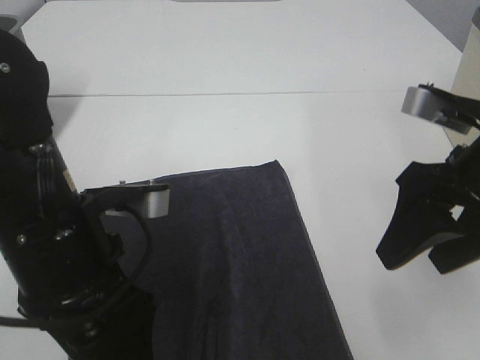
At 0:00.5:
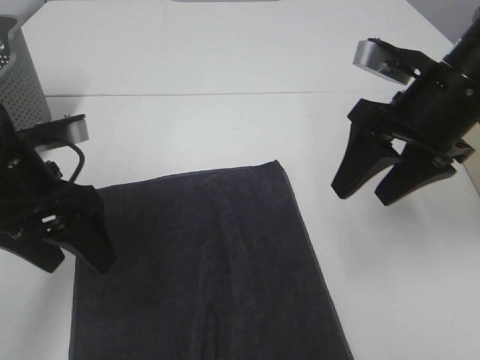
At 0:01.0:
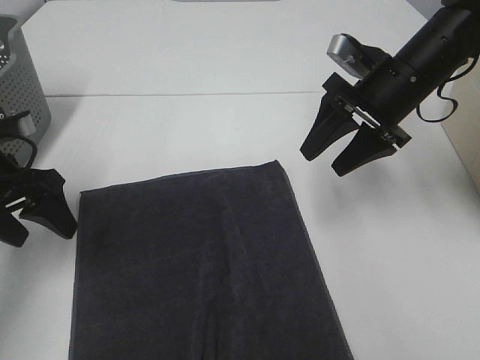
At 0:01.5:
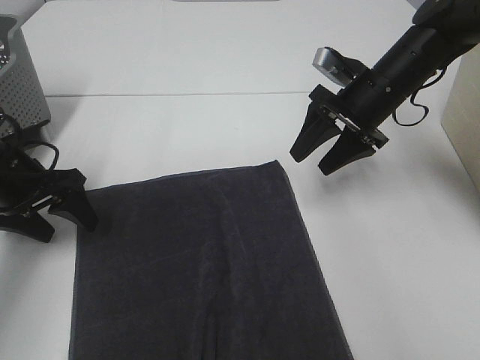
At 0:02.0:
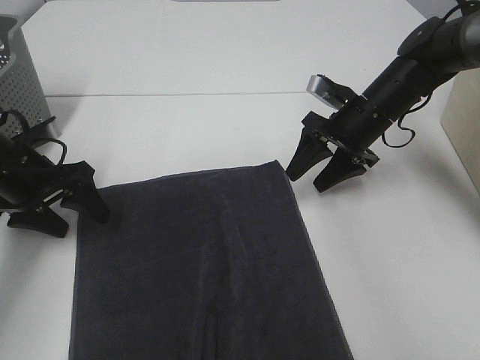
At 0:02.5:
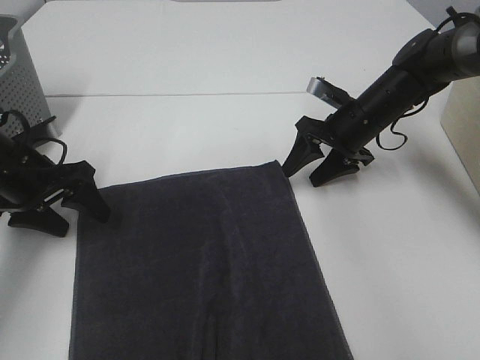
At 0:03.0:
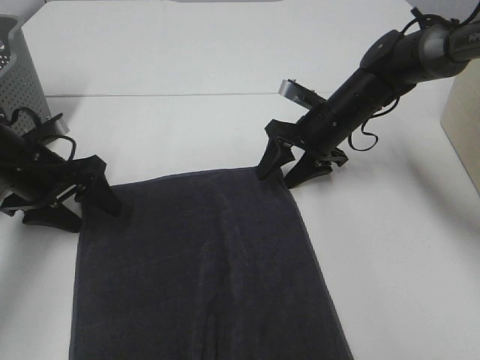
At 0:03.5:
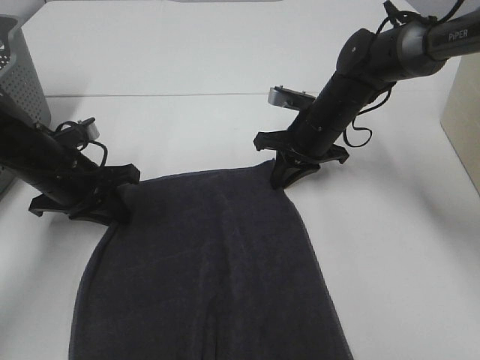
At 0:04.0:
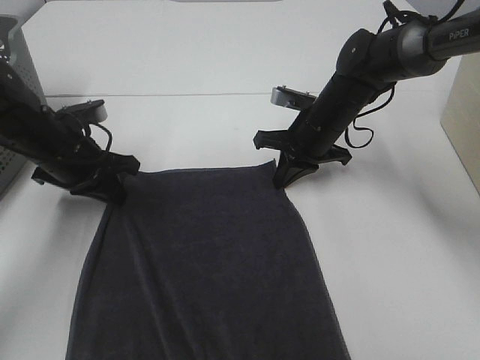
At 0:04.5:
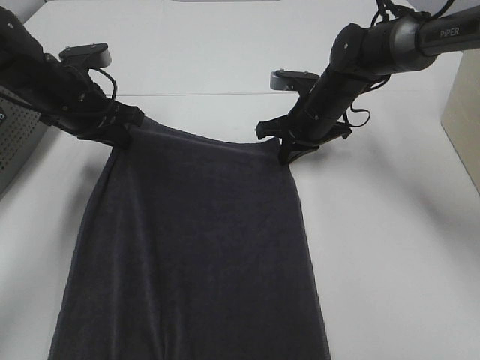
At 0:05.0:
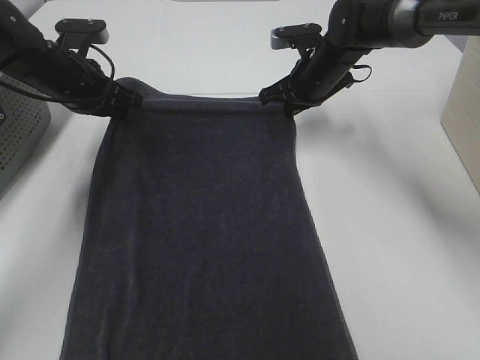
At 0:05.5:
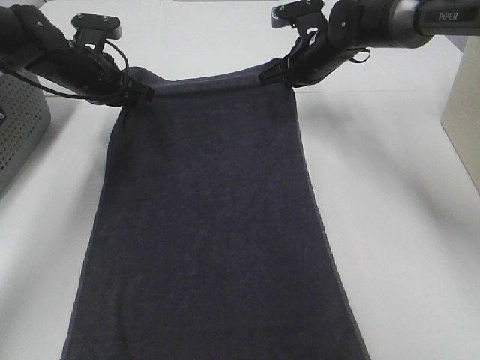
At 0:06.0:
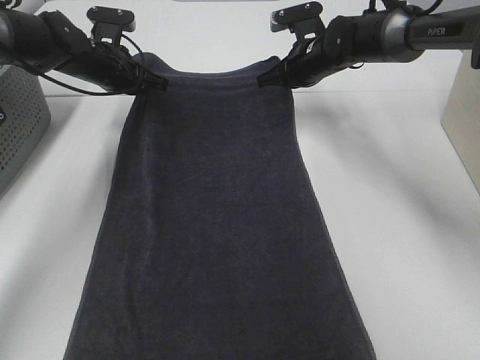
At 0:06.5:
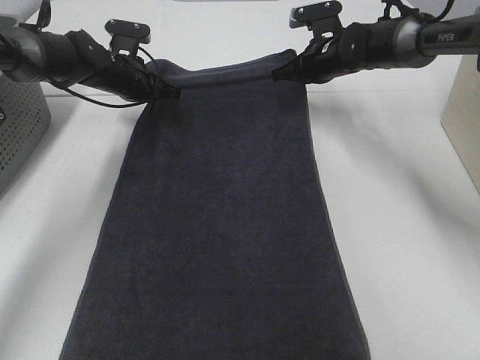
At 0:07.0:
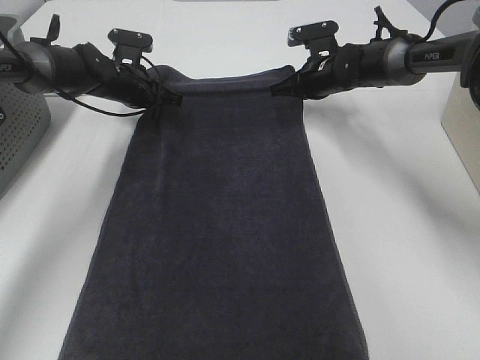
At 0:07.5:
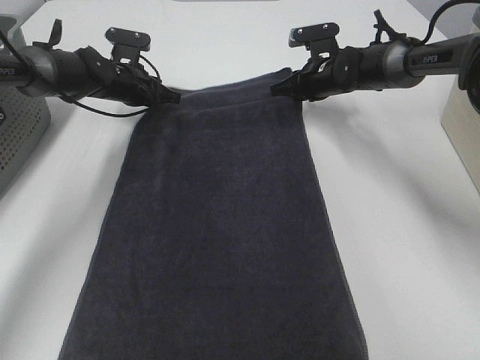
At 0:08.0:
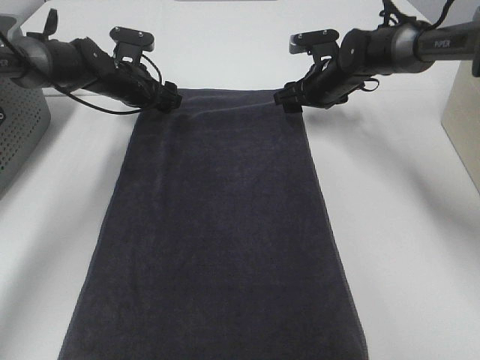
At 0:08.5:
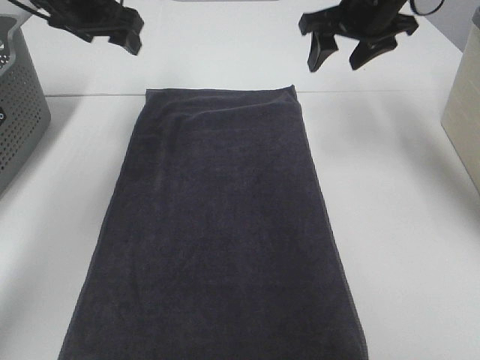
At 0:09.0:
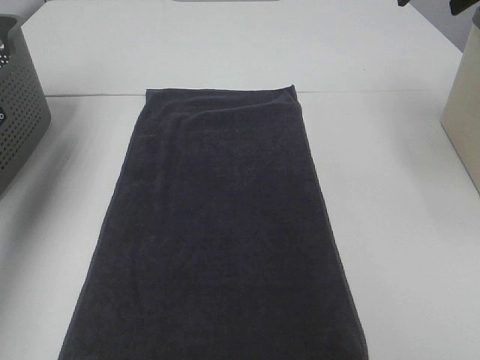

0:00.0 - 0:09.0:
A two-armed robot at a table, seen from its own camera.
Task of the whole recording: Remove the towel and place it.
0:00.0 - 0:02.0: The right gripper heads forward and downward, covering about 25 cm. Meanwhile the left gripper heads forward, to the left and downward, covering approximately 25 cm.
0:02.0 - 0:04.5: The left gripper is displaced forward, to the right and upward by about 10 cm, and closes. Meanwhile the right gripper shifts approximately 5 cm to the left, and closes.
0:04.5 - 0:07.0: The left gripper is displaced forward and downward by about 15 cm; the right gripper shifts about 10 cm forward.
0:07.0 - 0:09.0: The left gripper shifts approximately 35 cm upward, to the left and backward, and opens its fingers, while the right gripper is displaced upward and backward by some 30 cm, and opens.

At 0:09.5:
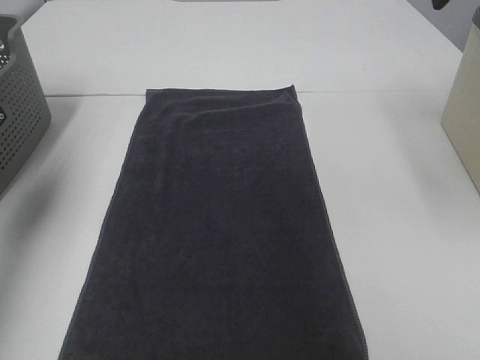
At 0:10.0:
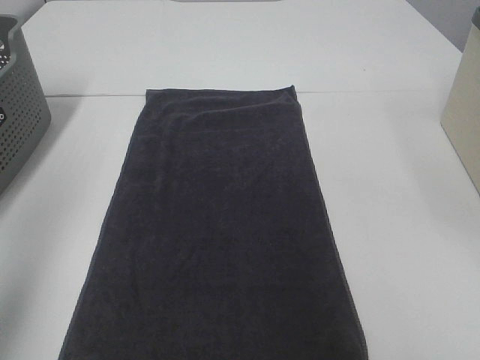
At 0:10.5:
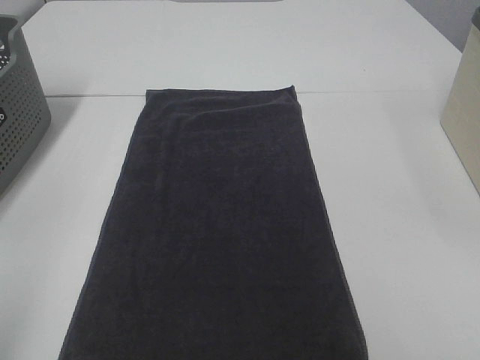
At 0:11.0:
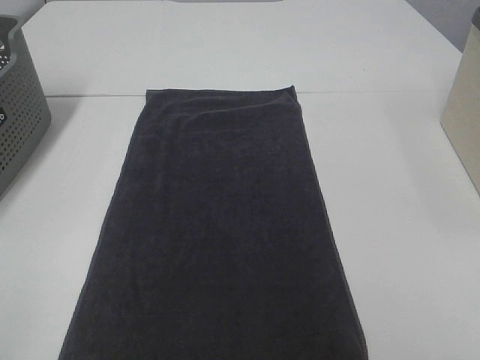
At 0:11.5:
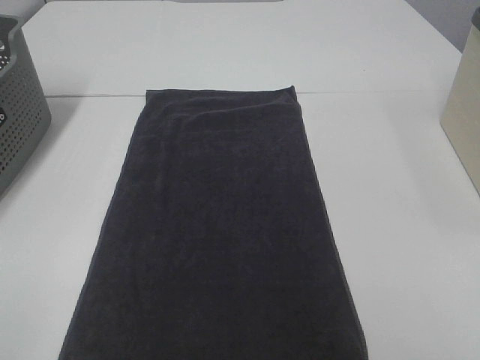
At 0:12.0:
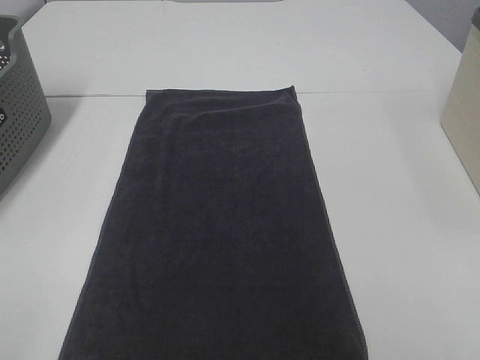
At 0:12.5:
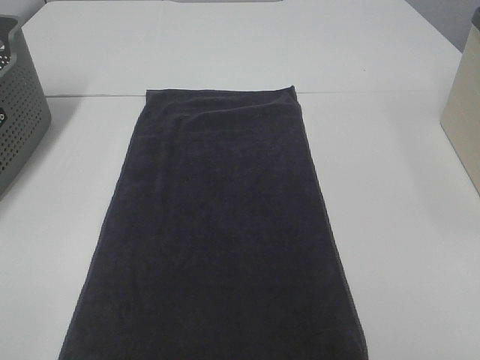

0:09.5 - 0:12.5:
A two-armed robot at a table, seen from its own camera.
Task of the whole recording: Remove the towel and place it.
0:09.5 - 0:11.0: The left gripper shifts some 30 cm backward.

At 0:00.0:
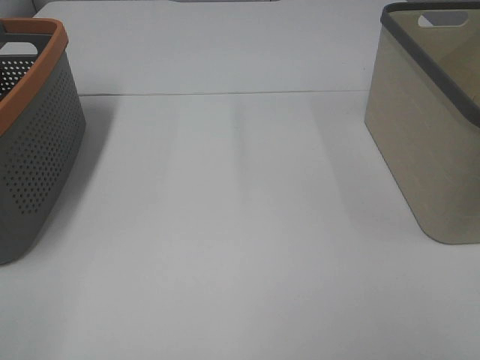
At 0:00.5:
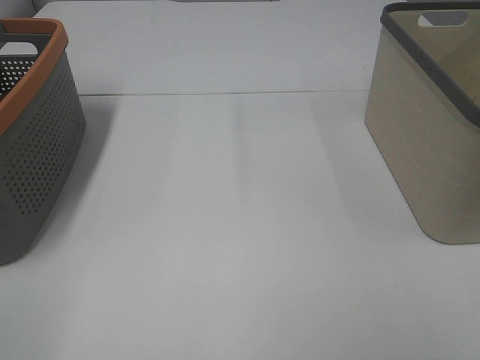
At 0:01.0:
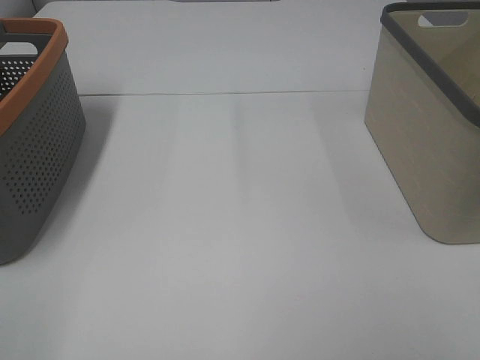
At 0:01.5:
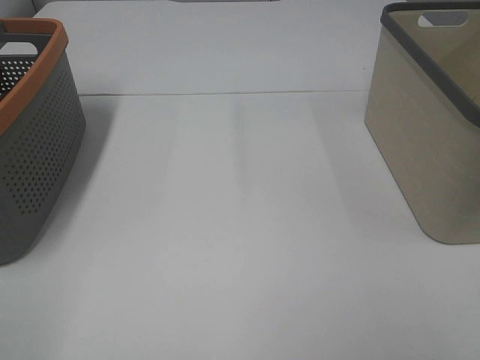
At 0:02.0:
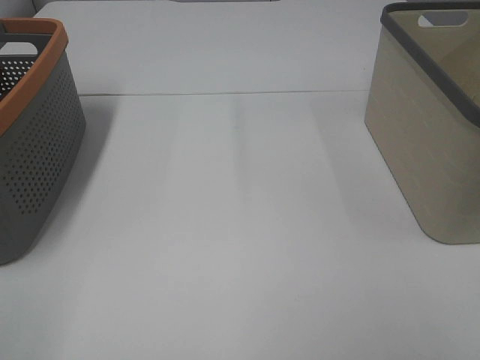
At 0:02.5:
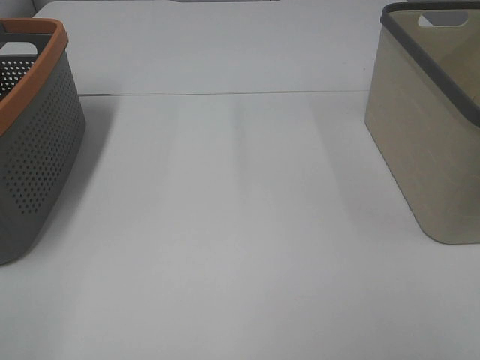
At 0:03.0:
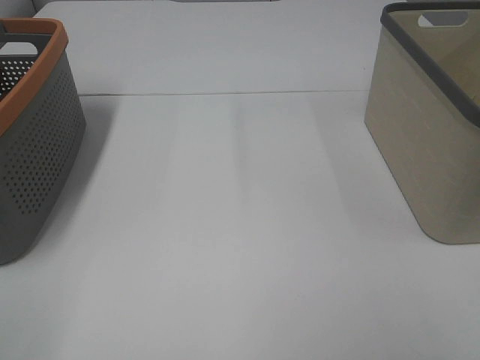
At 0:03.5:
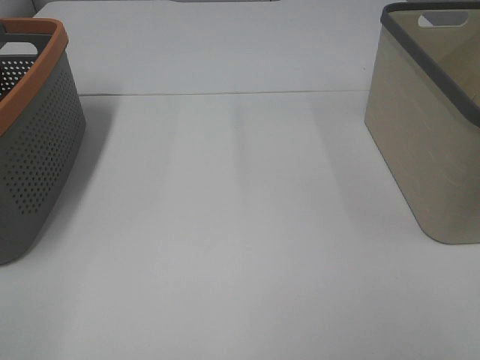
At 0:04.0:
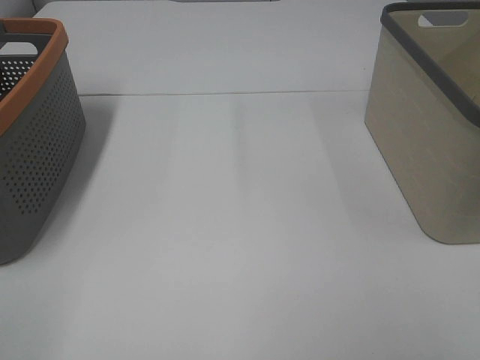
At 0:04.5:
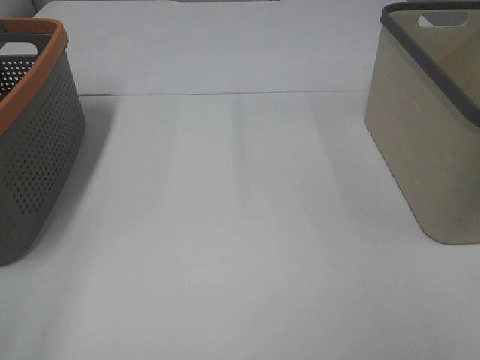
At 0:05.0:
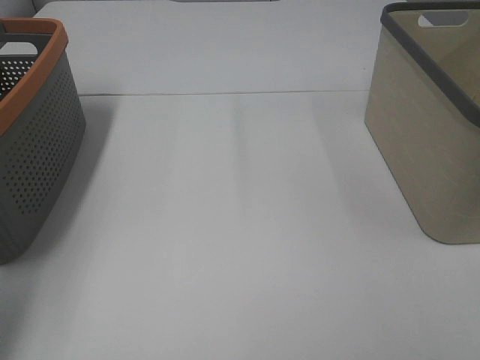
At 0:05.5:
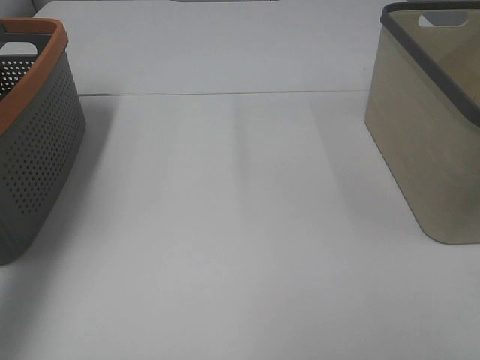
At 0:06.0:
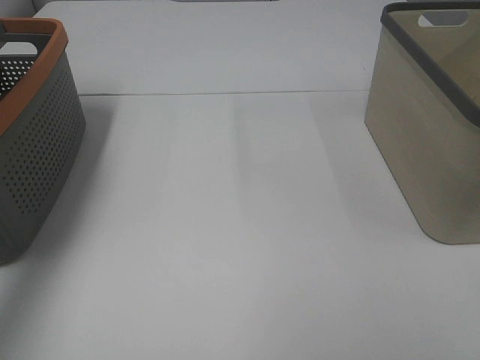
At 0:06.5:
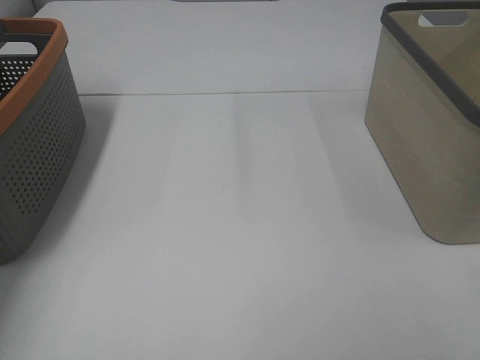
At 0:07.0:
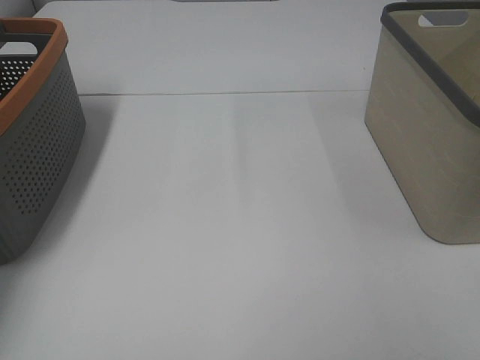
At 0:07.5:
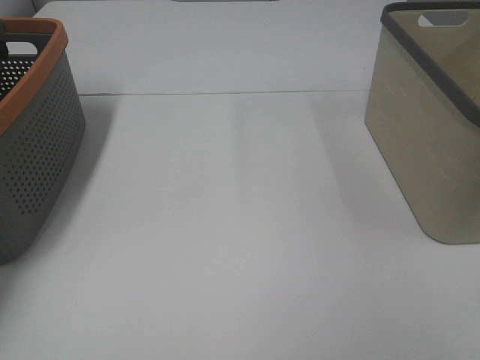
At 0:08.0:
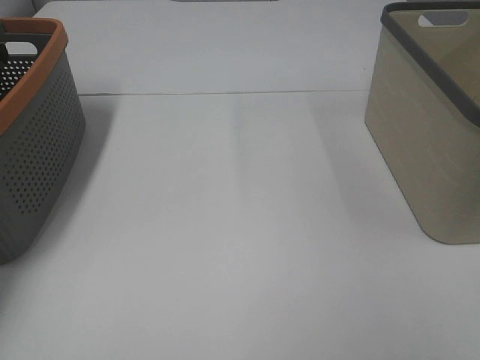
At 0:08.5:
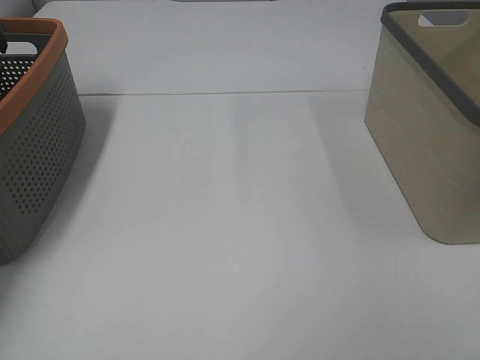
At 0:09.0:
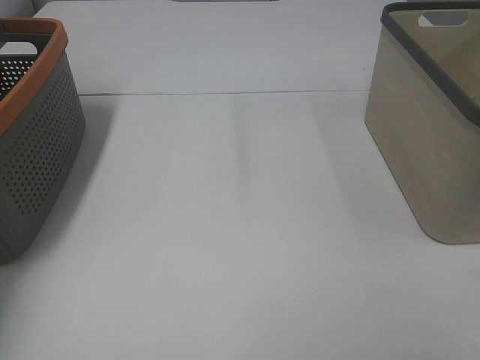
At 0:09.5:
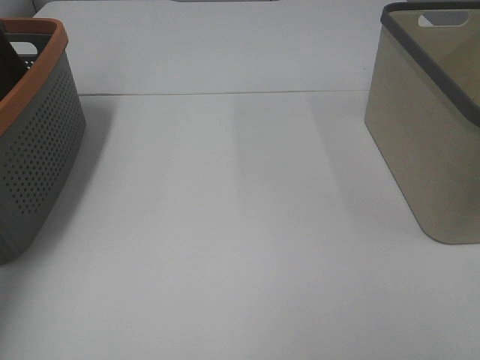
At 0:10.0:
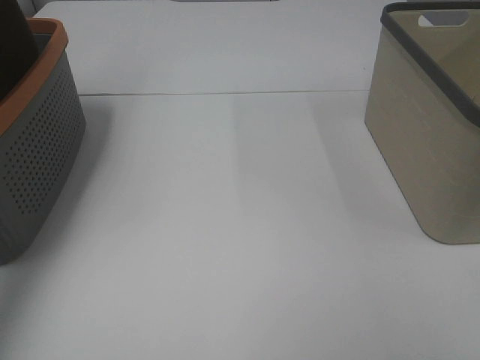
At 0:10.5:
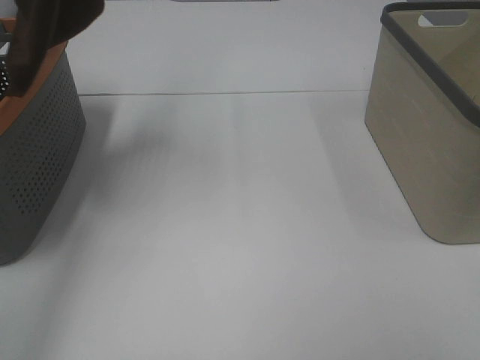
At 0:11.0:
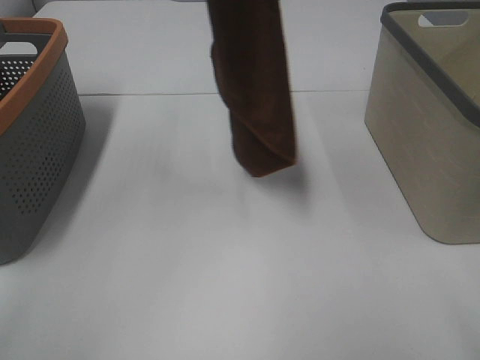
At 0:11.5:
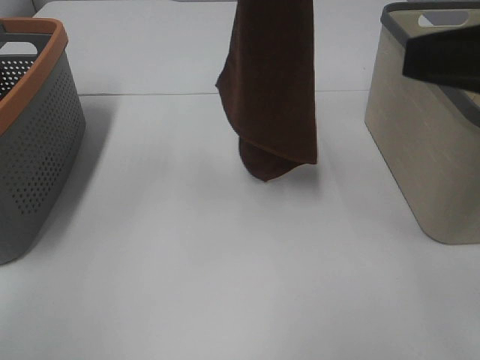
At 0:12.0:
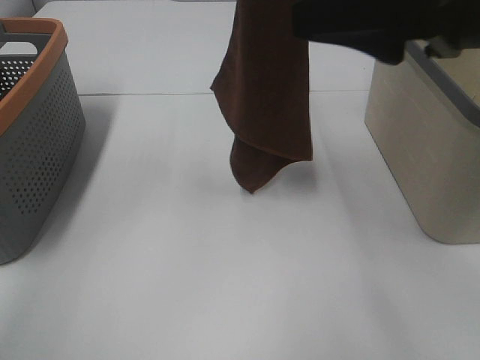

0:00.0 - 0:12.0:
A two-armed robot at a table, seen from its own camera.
Task of the whole recording: Remove the towel and place it.
0:00.0 - 0:04.0: The two grippers keep their place.
0:04.0 - 0:06.0: The left gripper shifts roughly 40 cm forward.
0:06.0 - 0:08.0: The left gripper goes some 15 cm forward, downward and to the left, and closes its fingers.
0:08.0 - 0:10.0: The left gripper travels upward and backward by about 35 cm.
0:10.0 - 0:12.0: The left gripper goes approximately 25 cm to the right, while the right gripper goes about 25 cm forward and to the left.

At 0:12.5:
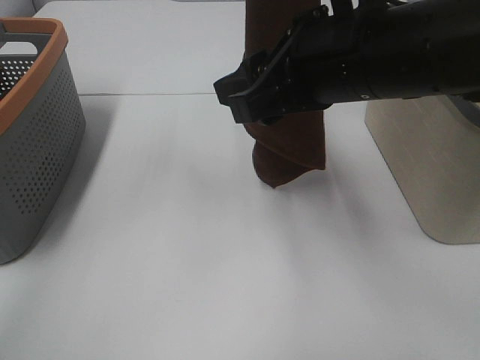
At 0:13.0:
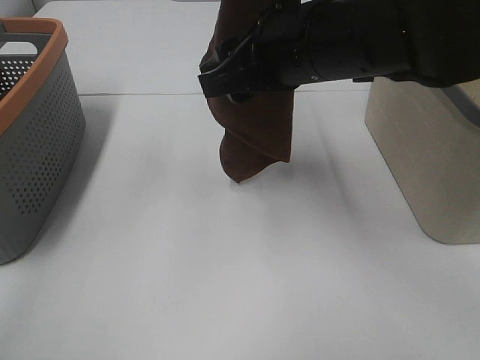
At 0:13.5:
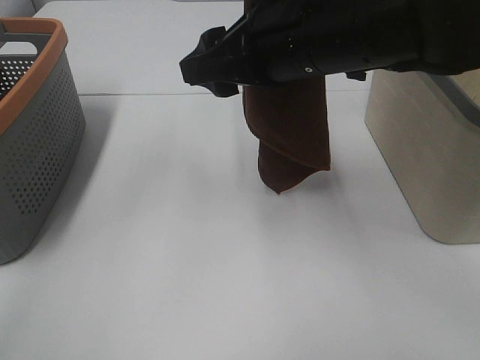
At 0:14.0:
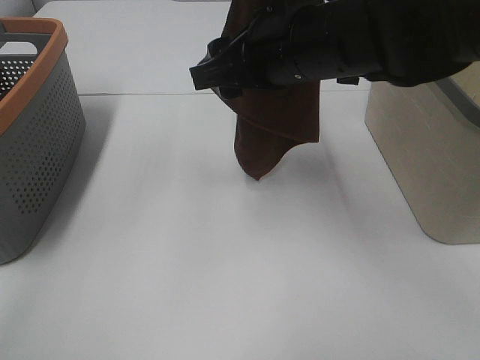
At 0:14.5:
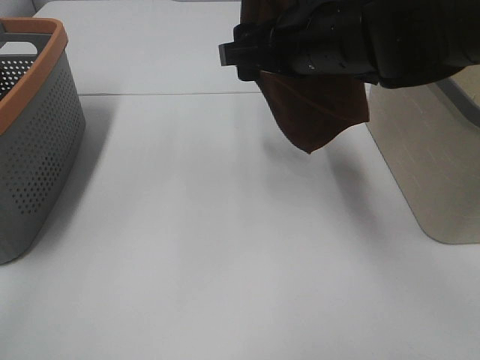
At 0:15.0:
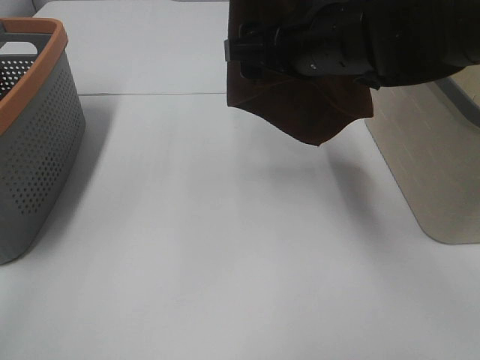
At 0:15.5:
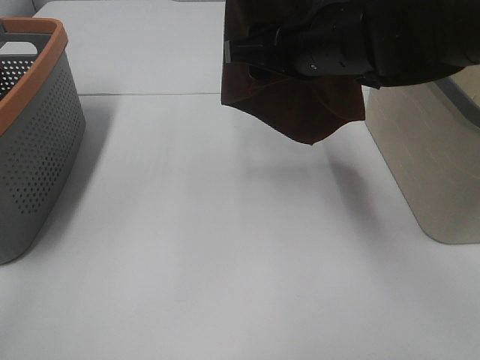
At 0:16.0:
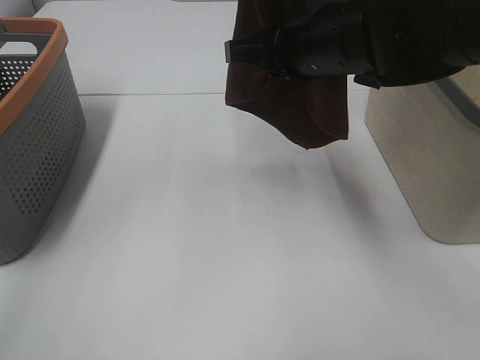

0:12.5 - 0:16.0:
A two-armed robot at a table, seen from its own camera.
Task of the whole recording: Remove the towel and place it.
0:12.5 - 0:14.5: The right gripper shifts roughly 5 cm forward.
0:14.5 - 0:16.0: The right gripper closes its fingers.
